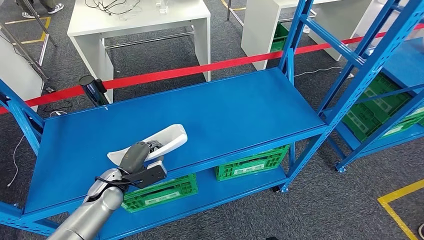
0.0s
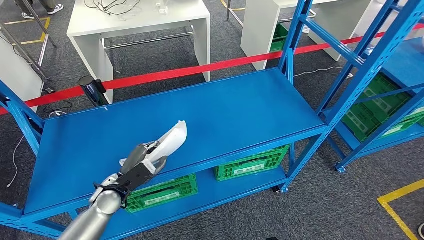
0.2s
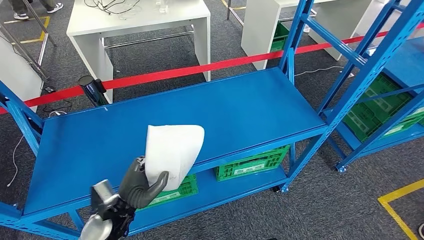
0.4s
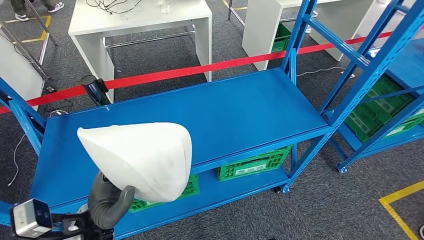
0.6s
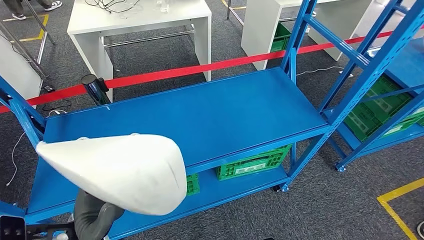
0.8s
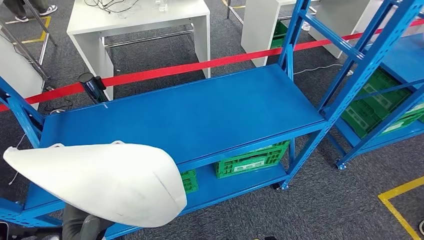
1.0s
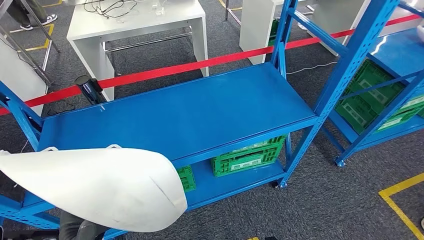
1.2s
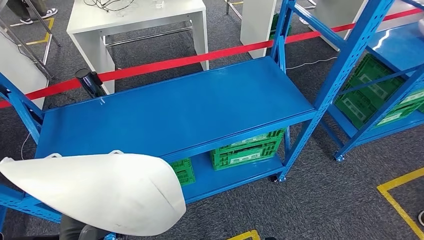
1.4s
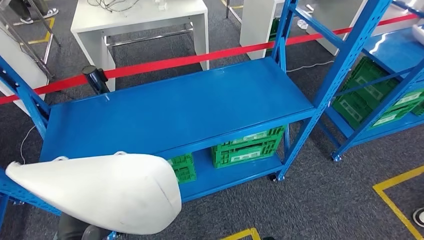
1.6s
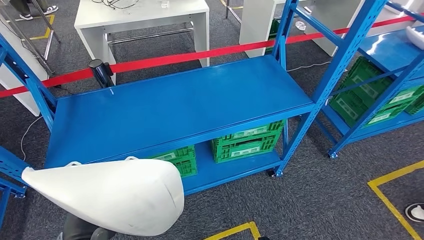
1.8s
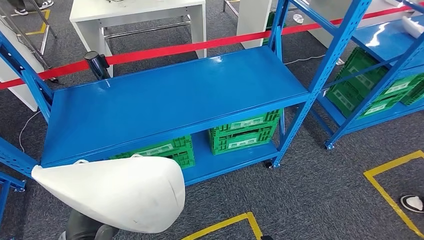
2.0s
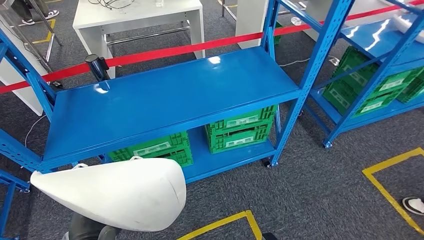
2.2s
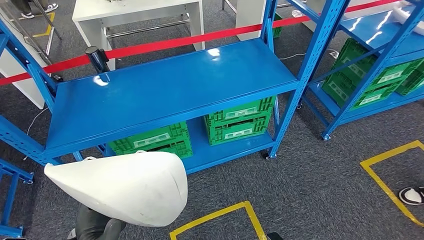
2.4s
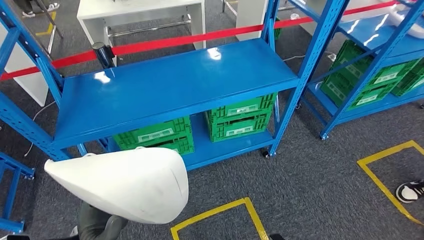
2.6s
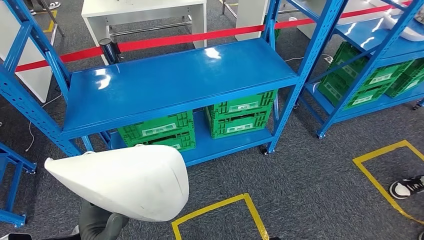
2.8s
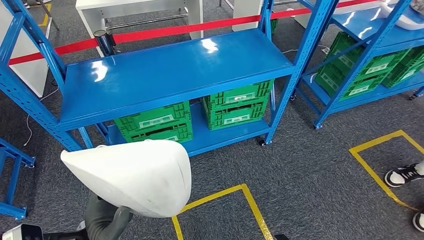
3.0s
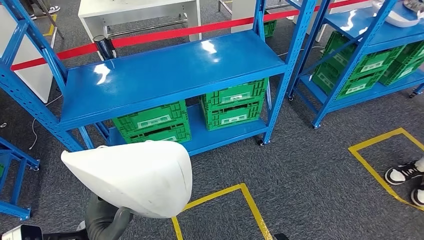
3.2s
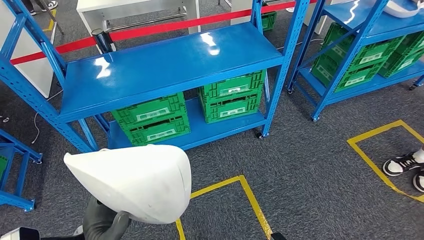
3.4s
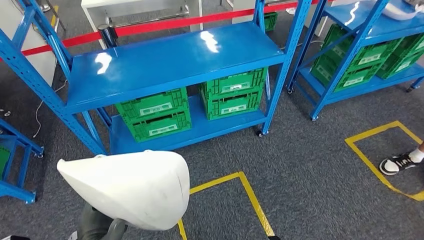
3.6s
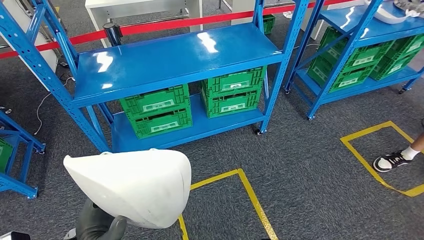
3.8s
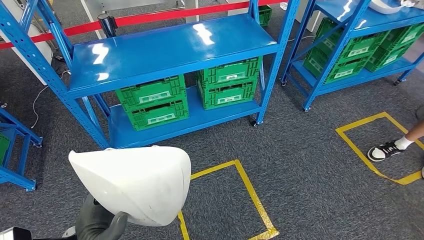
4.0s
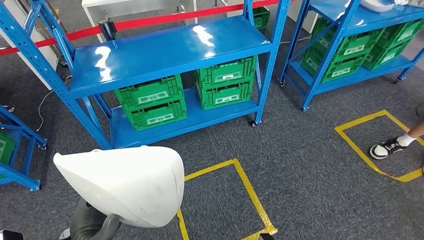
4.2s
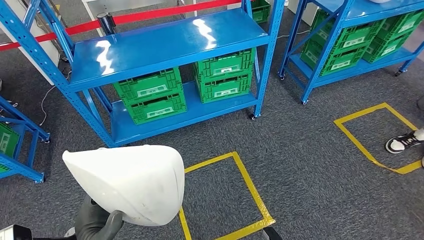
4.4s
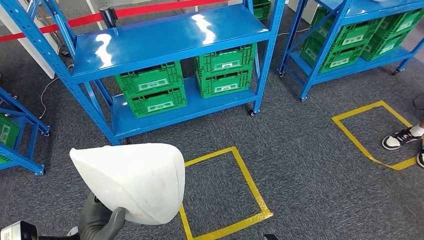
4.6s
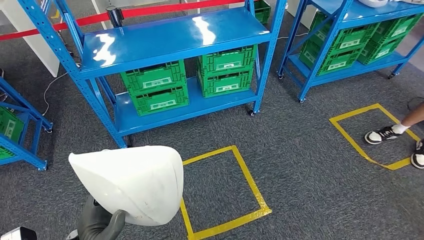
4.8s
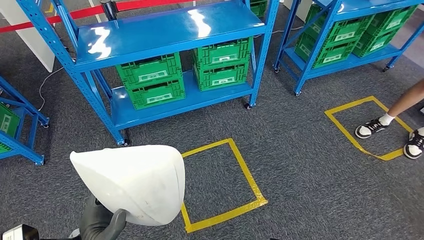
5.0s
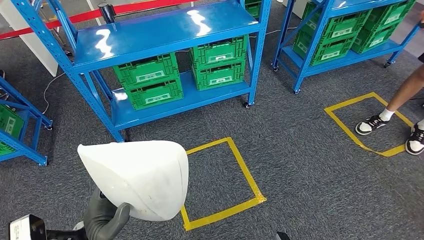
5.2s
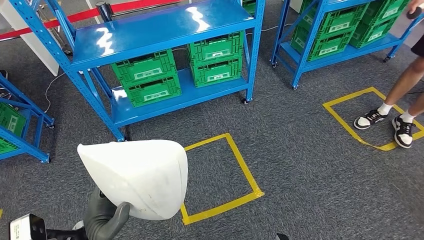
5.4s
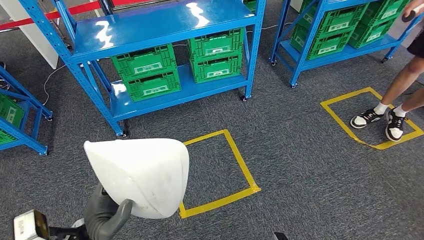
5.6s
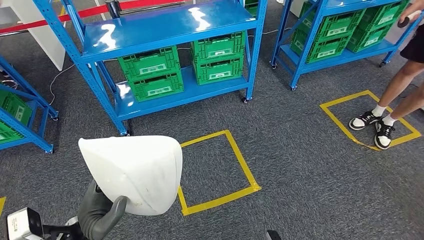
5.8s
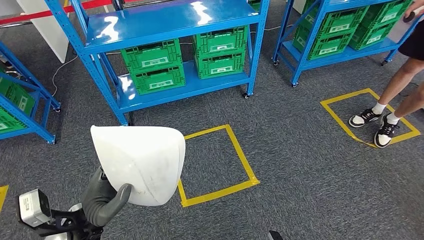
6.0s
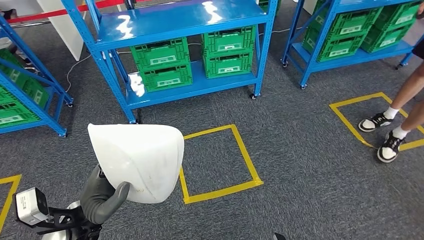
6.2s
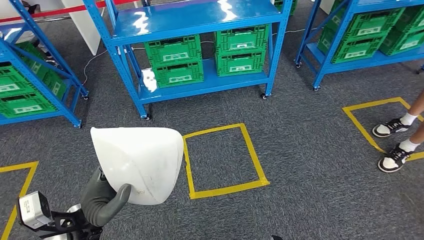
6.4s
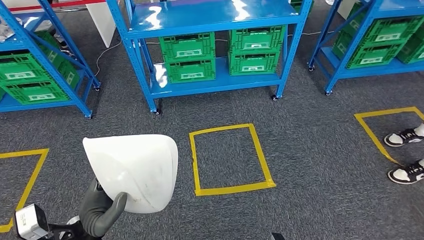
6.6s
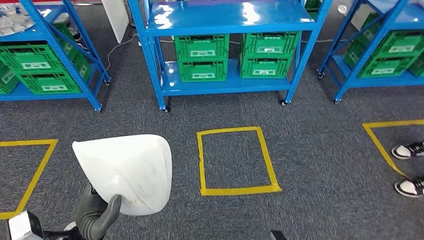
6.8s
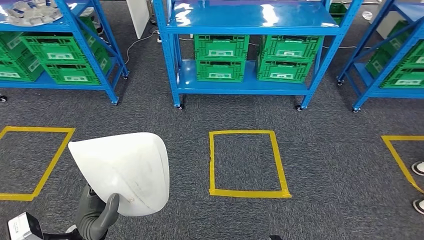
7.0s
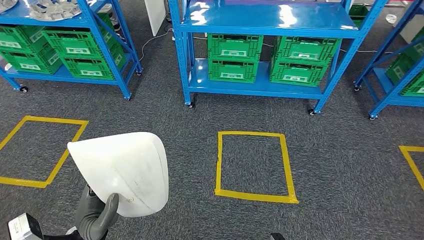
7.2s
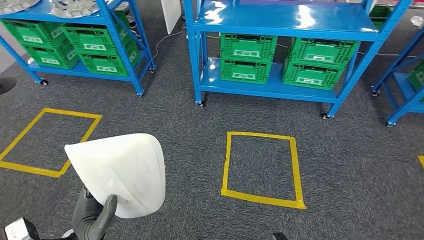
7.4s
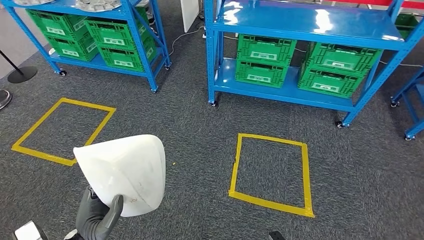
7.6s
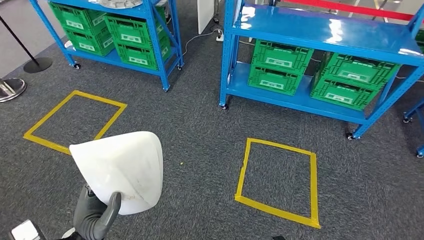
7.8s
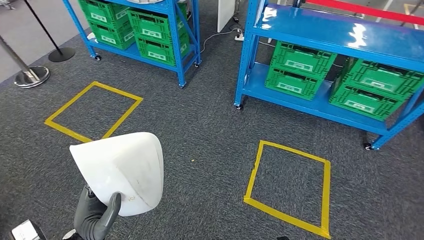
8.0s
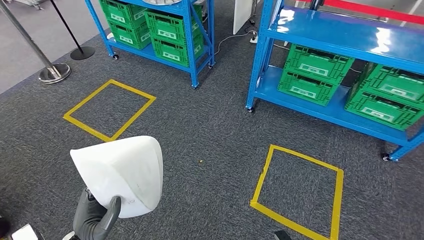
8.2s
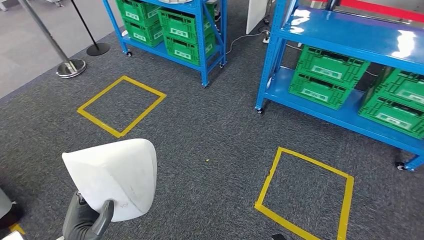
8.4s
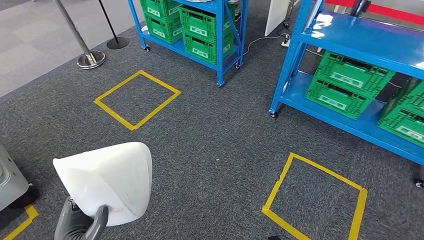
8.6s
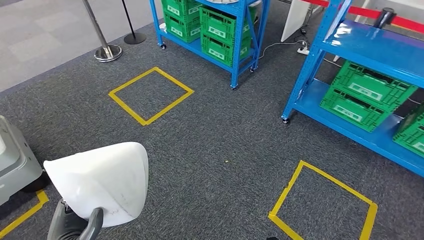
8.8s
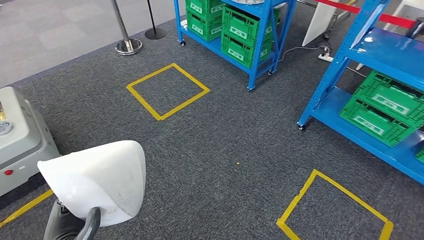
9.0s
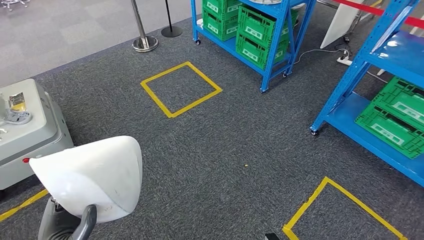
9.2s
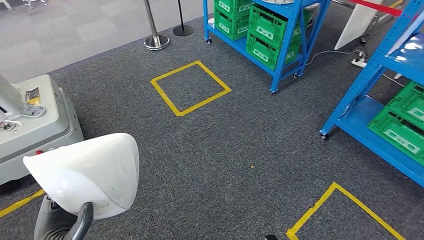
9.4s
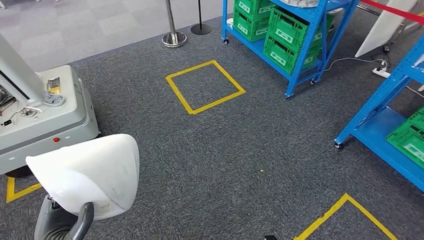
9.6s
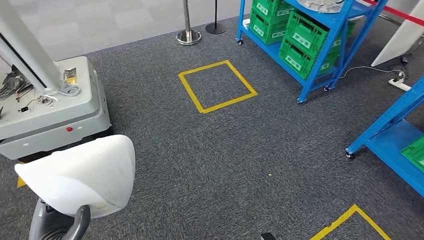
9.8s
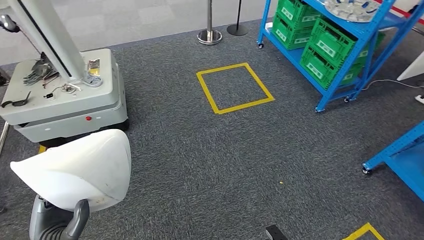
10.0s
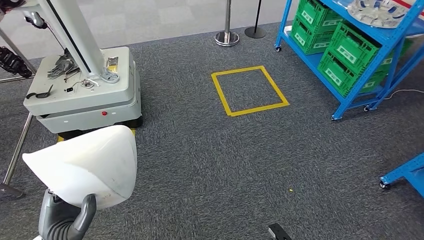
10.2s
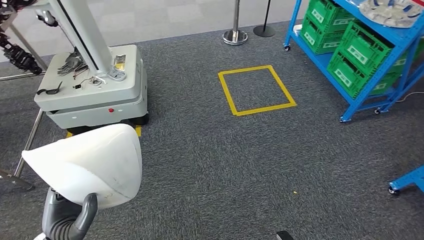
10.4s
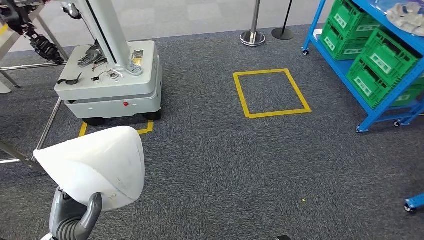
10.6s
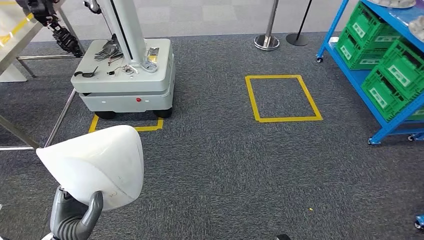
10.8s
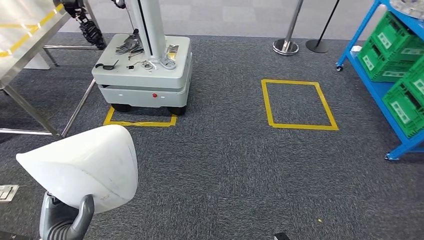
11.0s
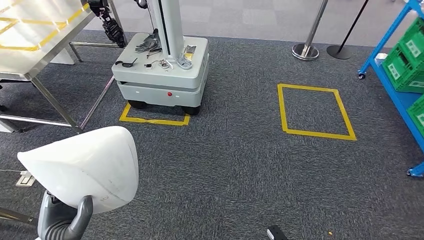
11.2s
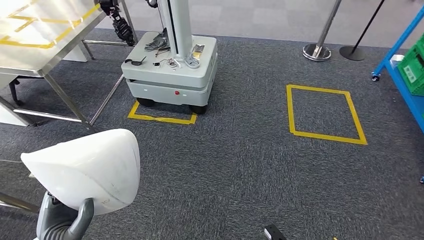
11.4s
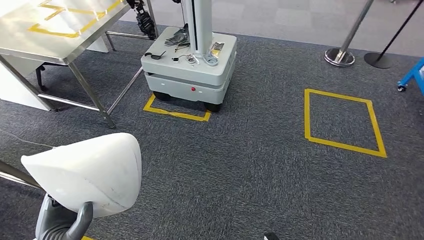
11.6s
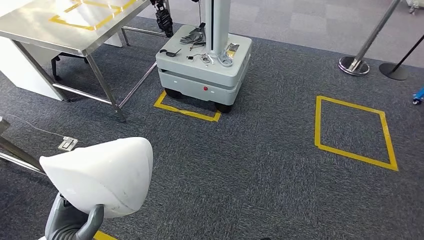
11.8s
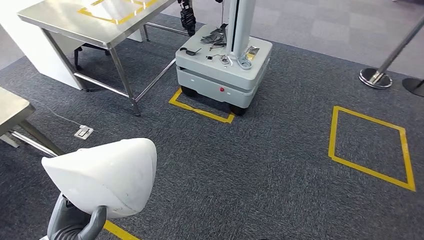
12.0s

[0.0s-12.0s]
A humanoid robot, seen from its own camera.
Step, 0.0s to 2.0s: Take small components from the rack.

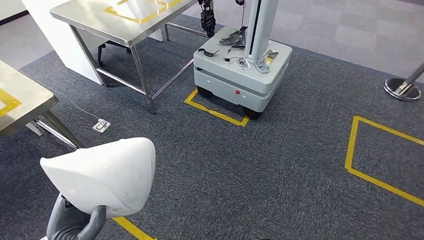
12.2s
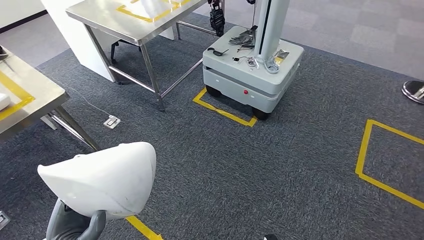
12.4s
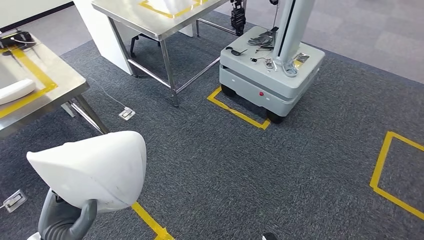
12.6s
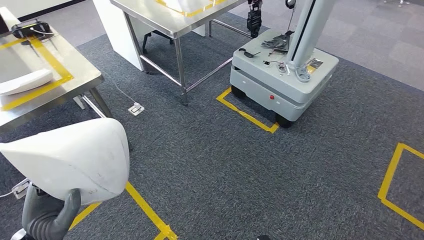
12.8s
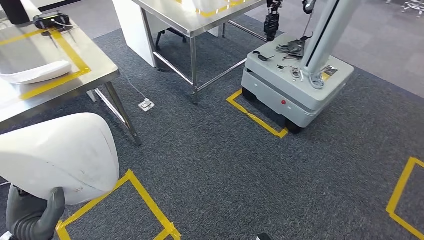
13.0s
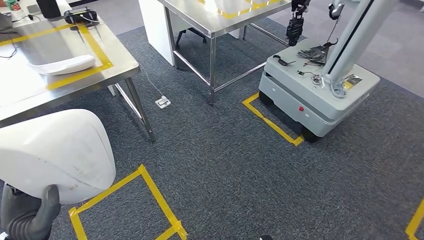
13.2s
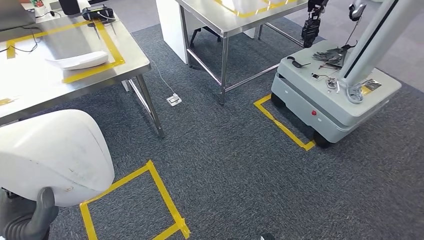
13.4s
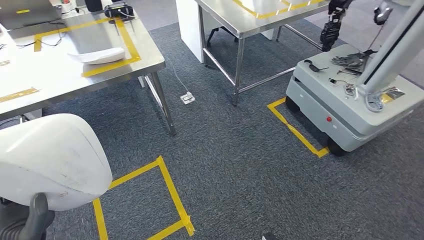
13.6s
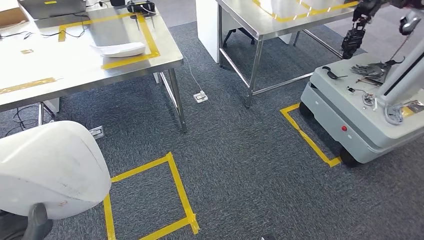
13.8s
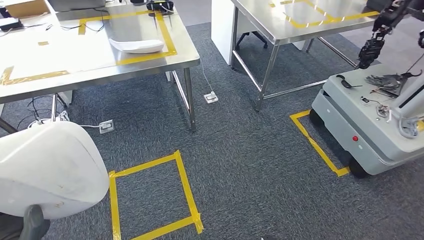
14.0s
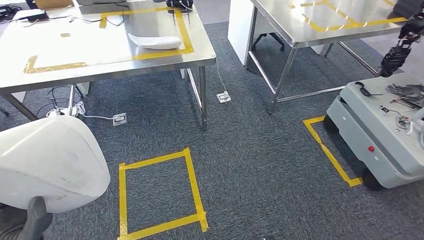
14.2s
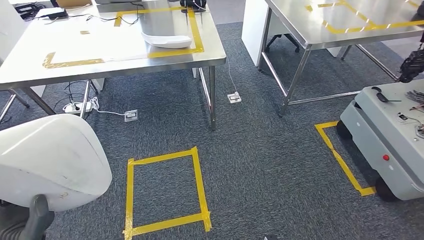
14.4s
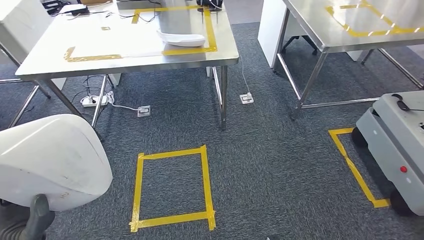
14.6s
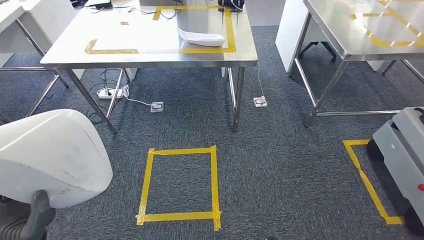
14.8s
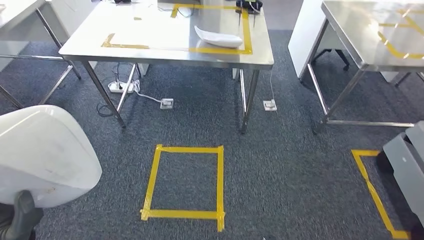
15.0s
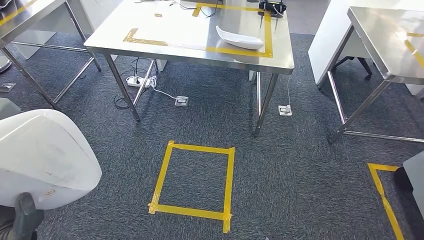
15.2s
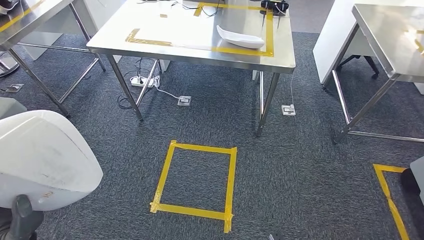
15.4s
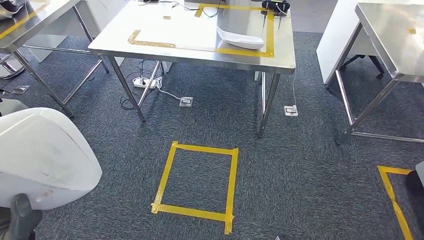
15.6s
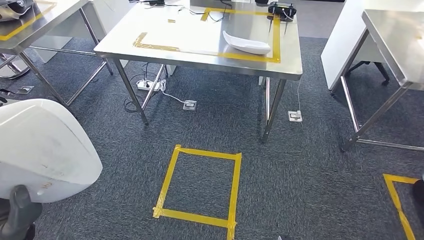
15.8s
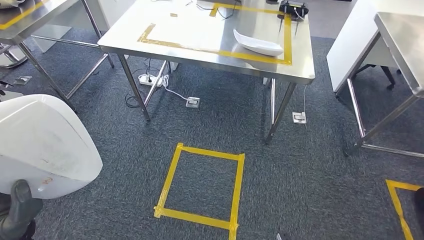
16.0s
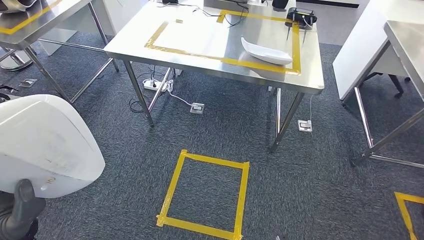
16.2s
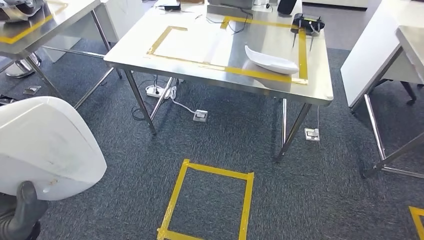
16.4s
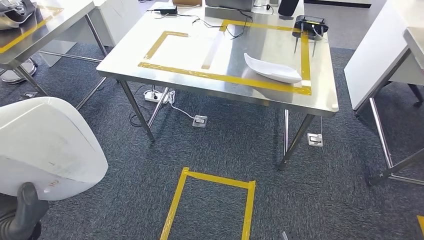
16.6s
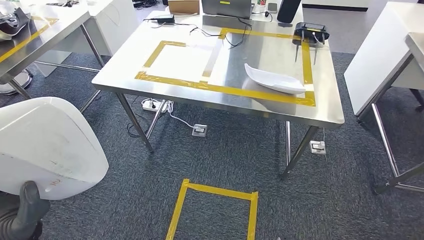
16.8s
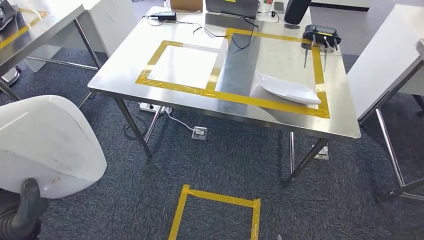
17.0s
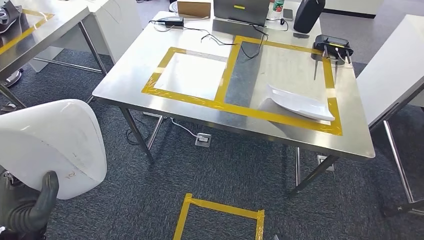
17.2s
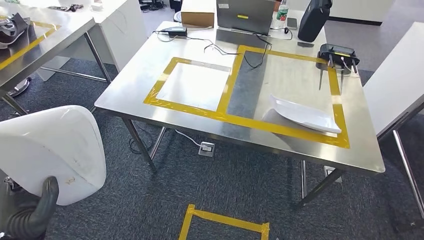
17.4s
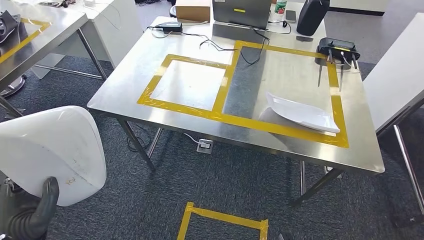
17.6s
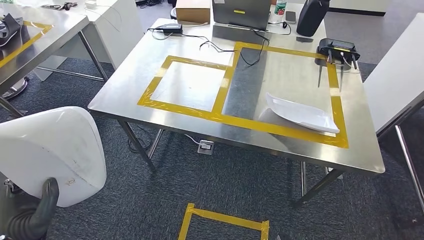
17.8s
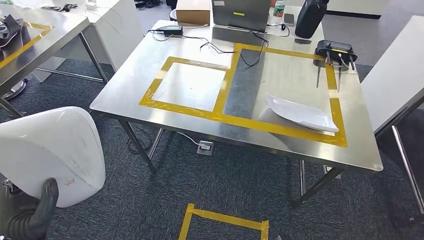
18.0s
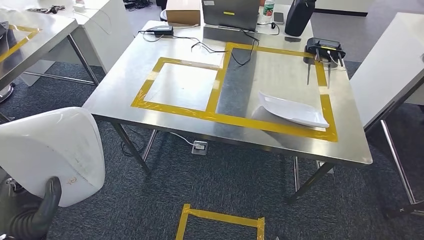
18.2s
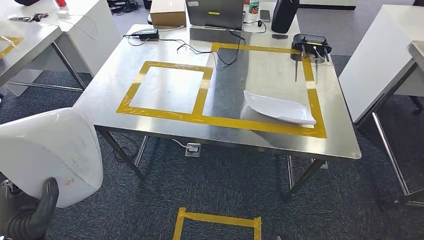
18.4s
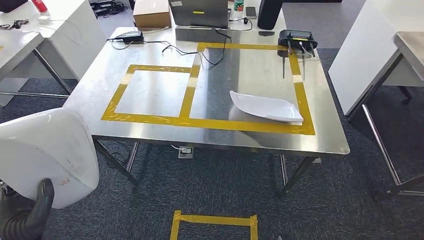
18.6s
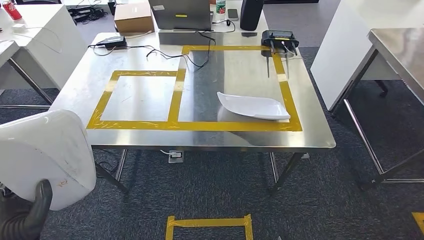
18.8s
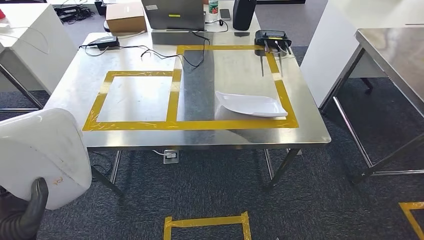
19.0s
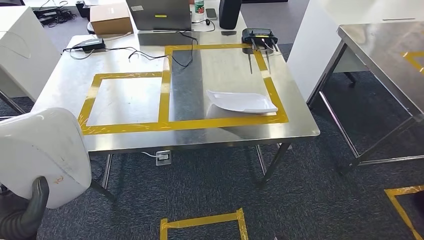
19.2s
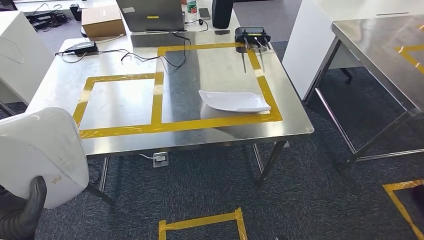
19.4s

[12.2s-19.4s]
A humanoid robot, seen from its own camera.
Step, 12.2s to 15.4s: Move the small parts to the workbench.
